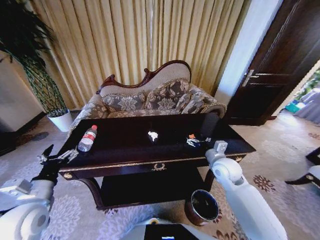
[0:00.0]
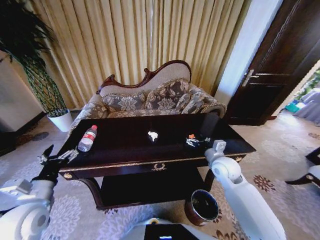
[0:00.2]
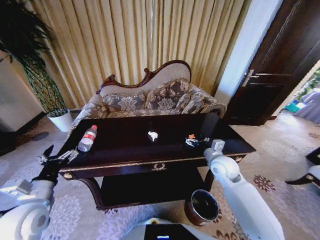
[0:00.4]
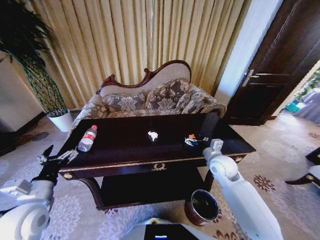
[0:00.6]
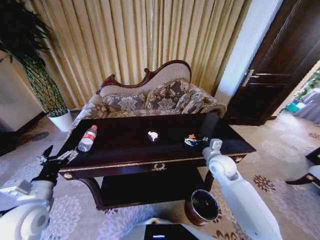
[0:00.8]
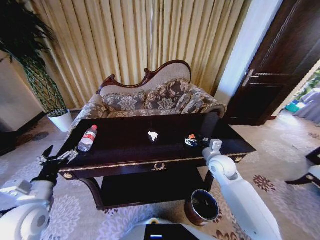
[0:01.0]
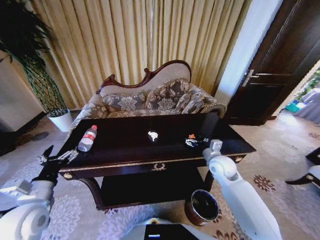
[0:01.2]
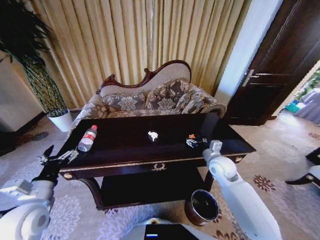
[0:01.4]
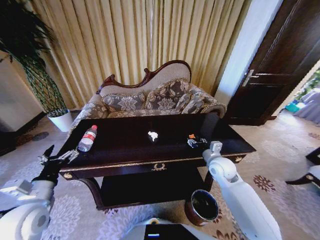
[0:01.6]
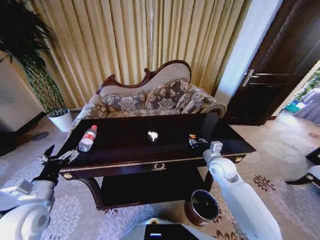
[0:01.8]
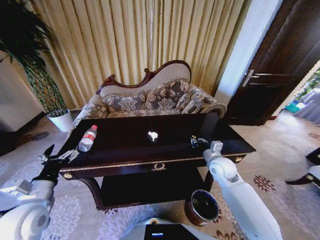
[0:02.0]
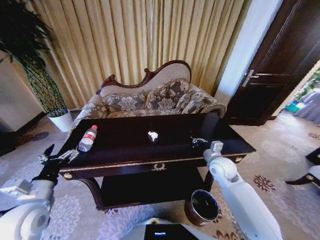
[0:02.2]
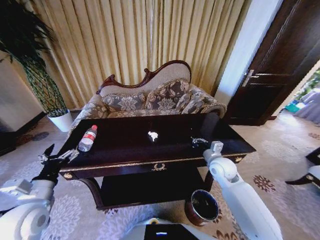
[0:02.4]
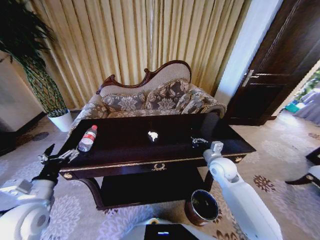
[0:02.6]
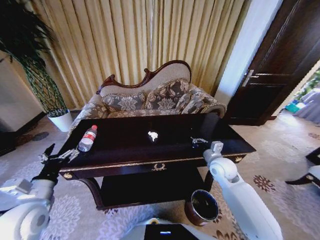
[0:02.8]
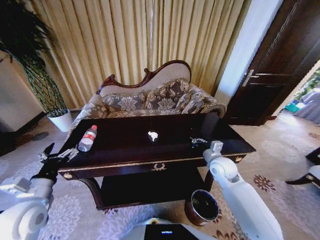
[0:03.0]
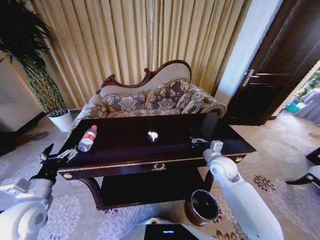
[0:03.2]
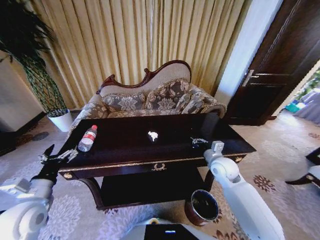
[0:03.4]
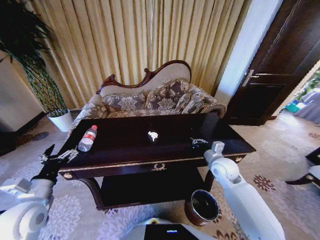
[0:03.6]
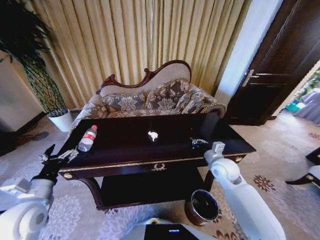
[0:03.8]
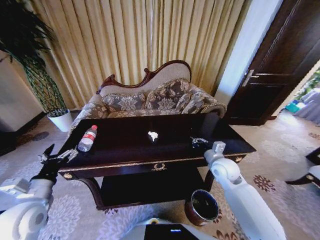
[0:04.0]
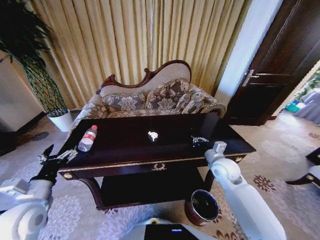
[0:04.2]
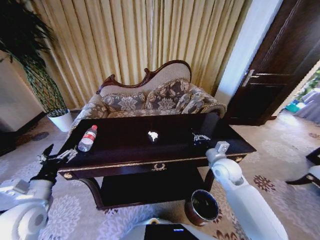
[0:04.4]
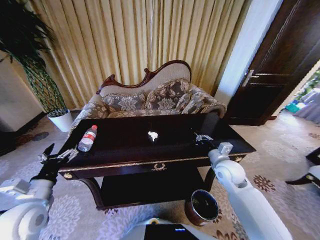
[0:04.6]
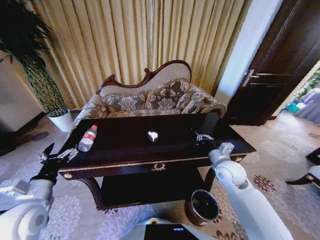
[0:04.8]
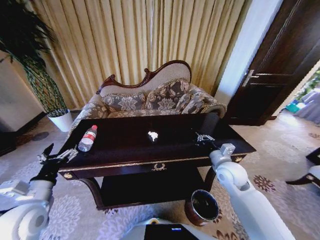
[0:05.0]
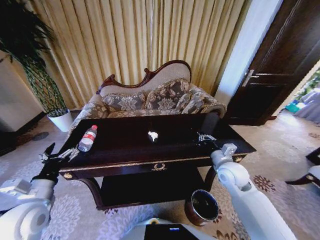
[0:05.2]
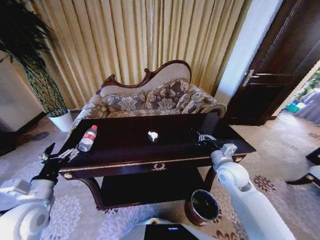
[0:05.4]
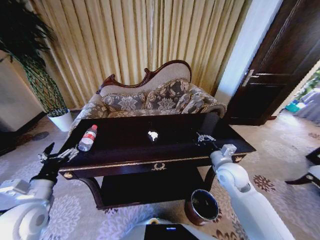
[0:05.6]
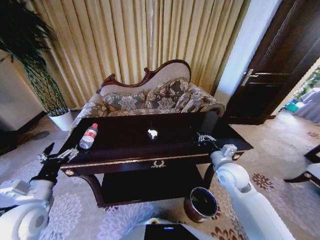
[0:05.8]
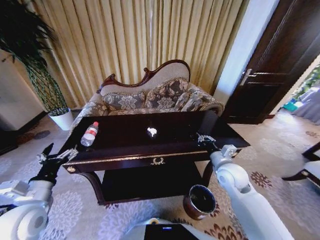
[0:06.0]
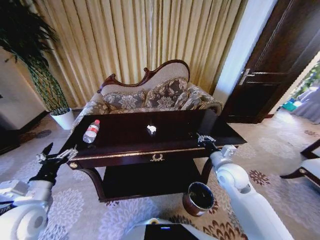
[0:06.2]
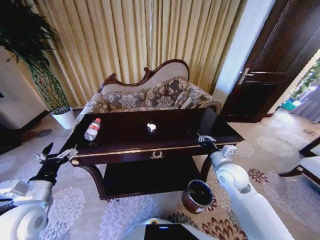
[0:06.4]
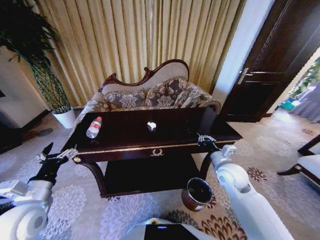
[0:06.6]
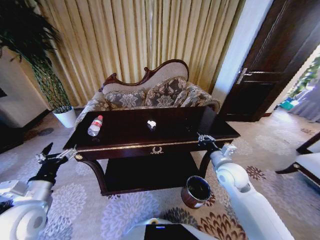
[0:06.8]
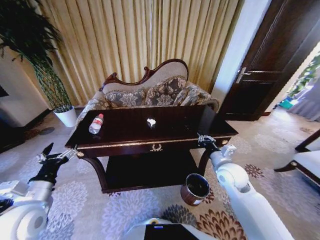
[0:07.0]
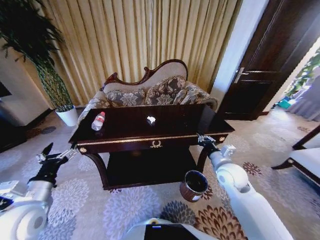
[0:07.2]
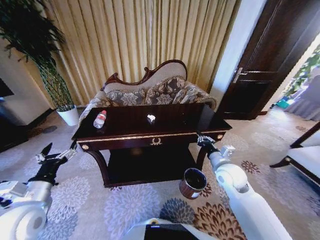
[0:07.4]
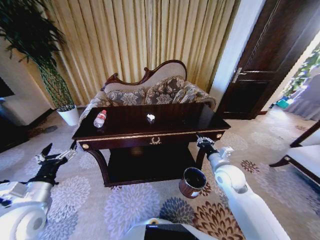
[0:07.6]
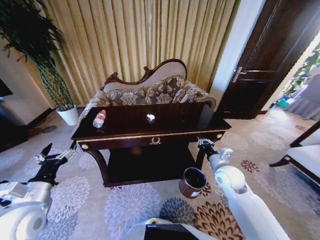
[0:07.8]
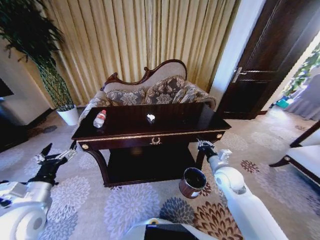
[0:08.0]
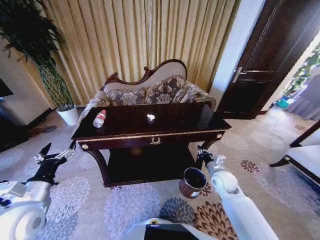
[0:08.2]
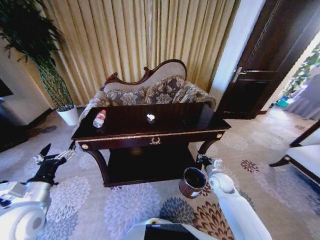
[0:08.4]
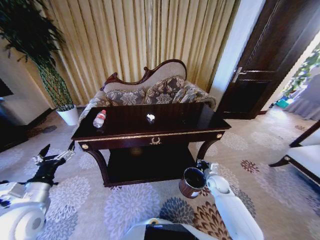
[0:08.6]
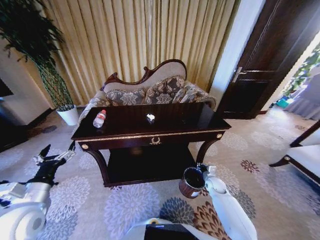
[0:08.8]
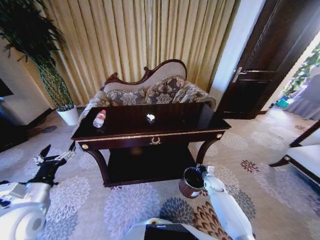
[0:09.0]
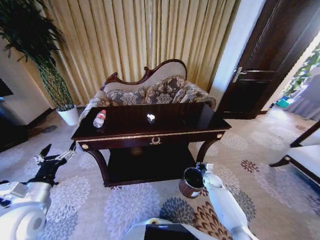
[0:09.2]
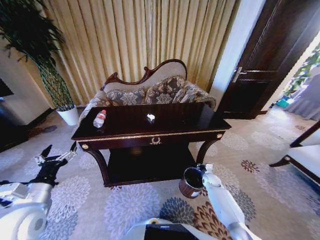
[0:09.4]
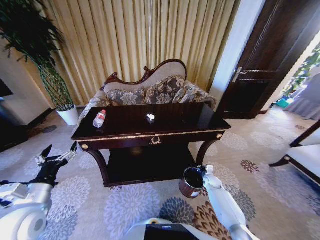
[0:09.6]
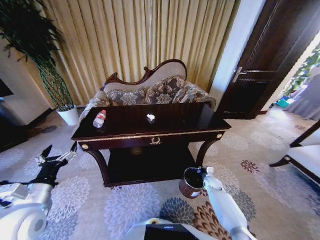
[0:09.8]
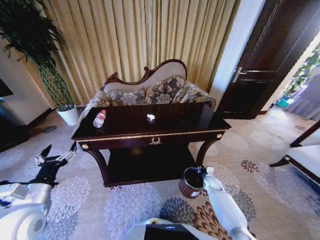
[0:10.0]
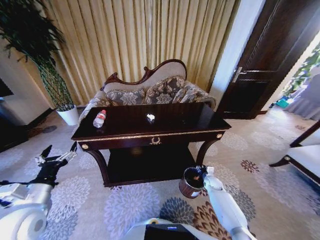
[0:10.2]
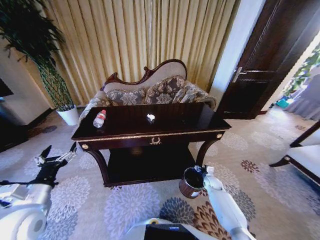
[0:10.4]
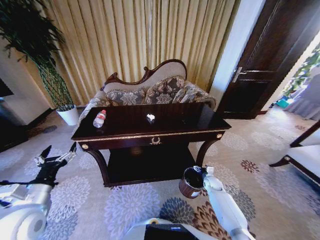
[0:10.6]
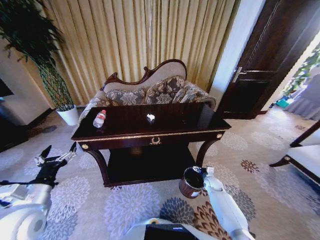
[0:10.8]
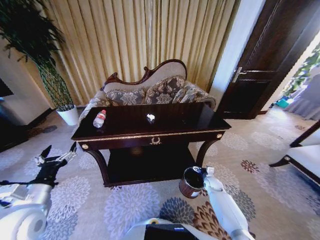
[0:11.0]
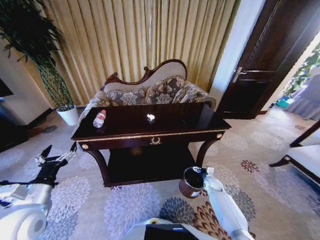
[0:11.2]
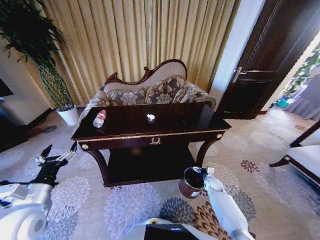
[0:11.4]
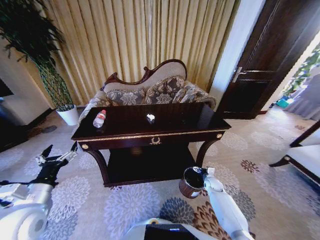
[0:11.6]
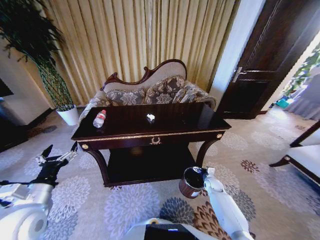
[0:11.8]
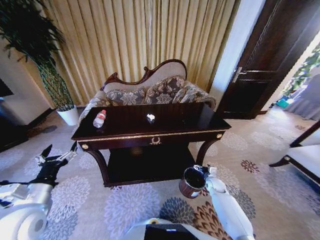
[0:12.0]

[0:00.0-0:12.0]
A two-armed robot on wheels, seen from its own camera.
Task of the whole recording: Move to the front of the table and place the trash on the table into the trash bin.
0:00.0 to 0:01.6: The right gripper closes.
0:01.6 to 0:03.0: The right gripper closes up.
0:03.0 to 0:06.0: The grippers stay close to where they were, moving slightly.
0:07.6 to 0:09.0: The right gripper shifts approximately 25 cm downward.
0:09.0 to 0:10.4: The right gripper opens.
0:10.4 to 0:12.0: The right gripper opens.

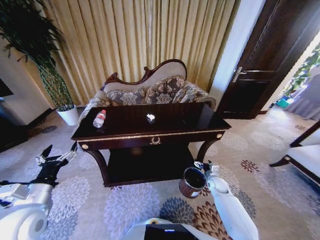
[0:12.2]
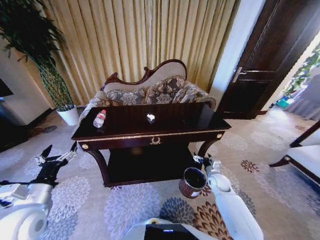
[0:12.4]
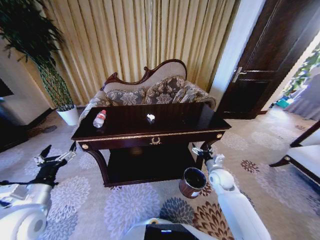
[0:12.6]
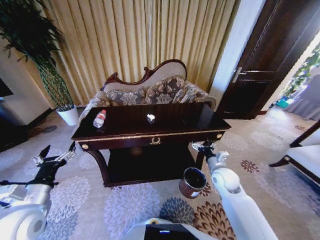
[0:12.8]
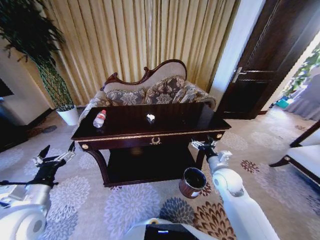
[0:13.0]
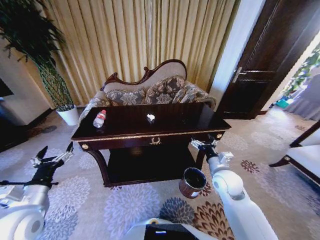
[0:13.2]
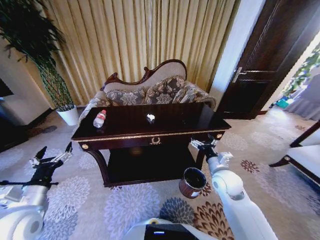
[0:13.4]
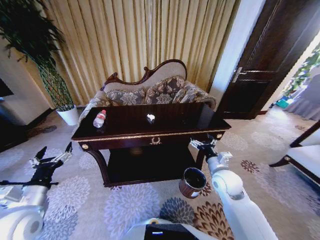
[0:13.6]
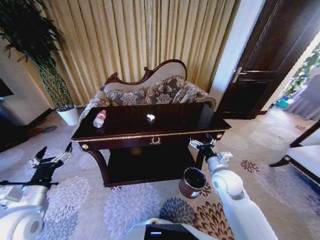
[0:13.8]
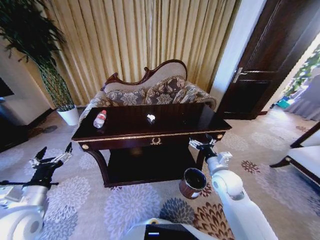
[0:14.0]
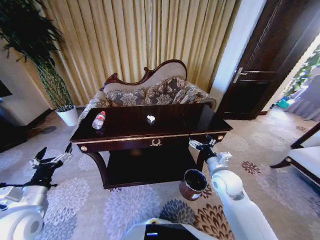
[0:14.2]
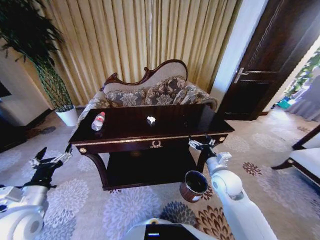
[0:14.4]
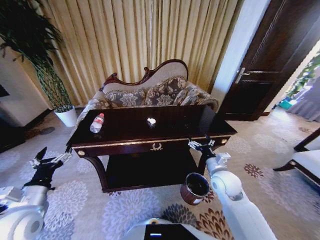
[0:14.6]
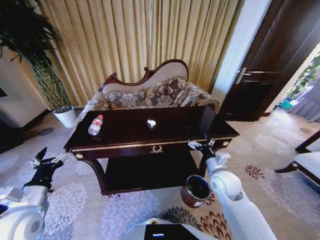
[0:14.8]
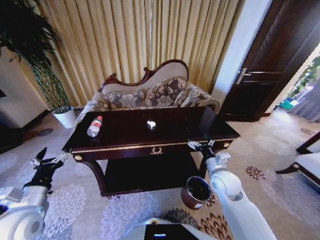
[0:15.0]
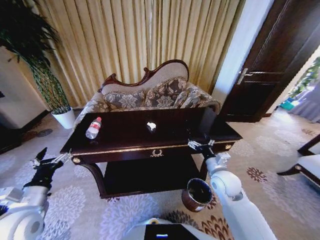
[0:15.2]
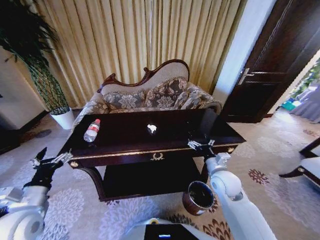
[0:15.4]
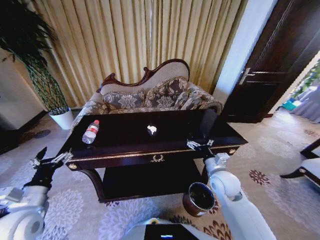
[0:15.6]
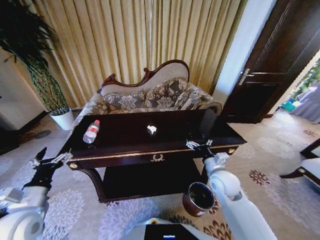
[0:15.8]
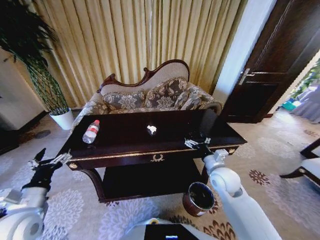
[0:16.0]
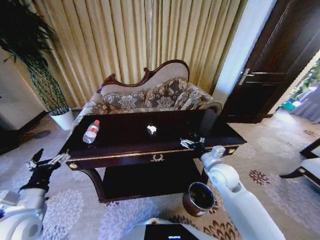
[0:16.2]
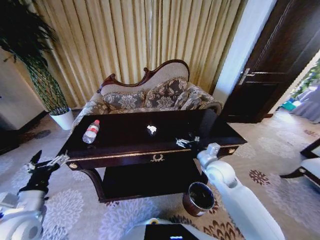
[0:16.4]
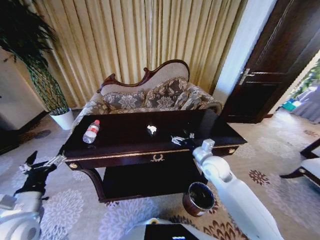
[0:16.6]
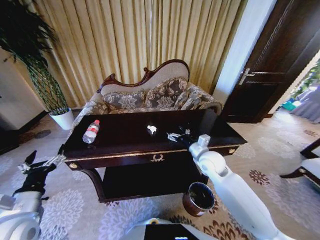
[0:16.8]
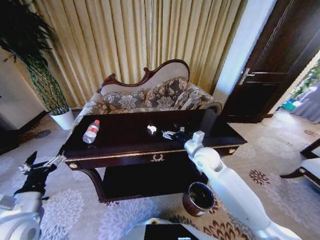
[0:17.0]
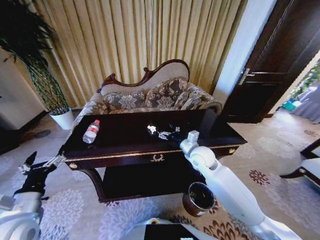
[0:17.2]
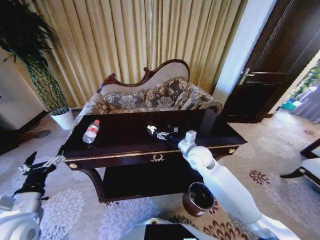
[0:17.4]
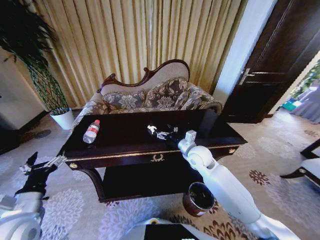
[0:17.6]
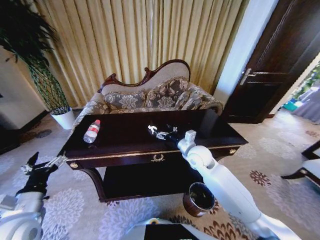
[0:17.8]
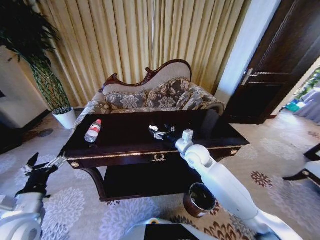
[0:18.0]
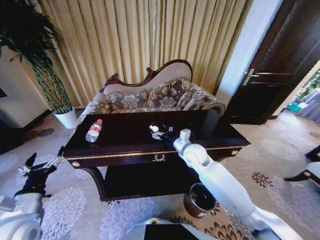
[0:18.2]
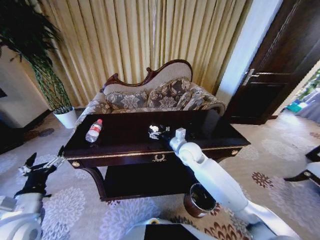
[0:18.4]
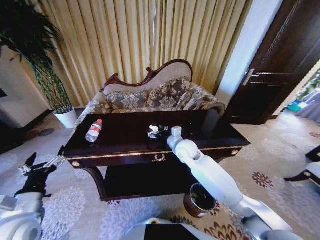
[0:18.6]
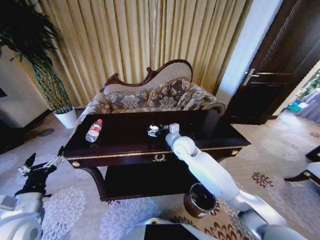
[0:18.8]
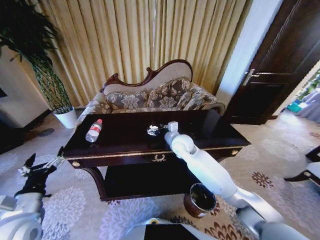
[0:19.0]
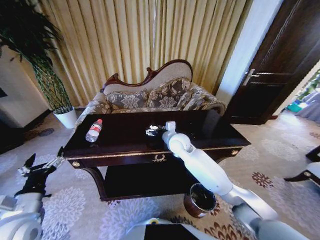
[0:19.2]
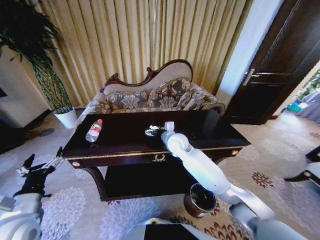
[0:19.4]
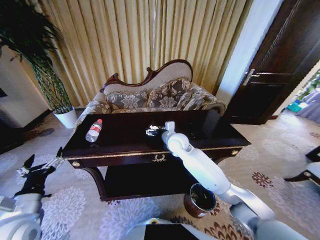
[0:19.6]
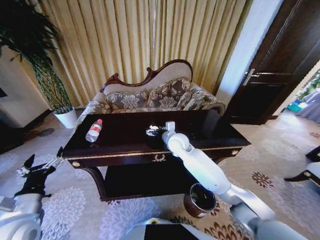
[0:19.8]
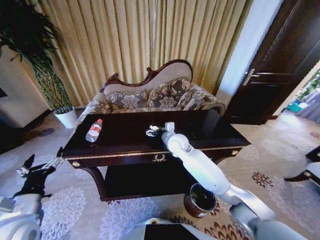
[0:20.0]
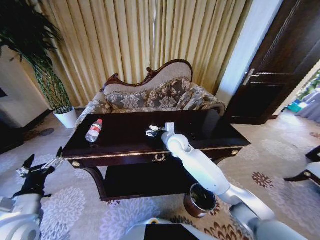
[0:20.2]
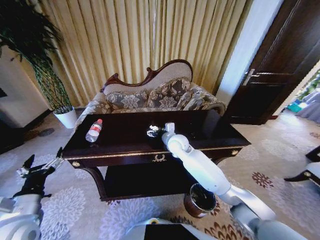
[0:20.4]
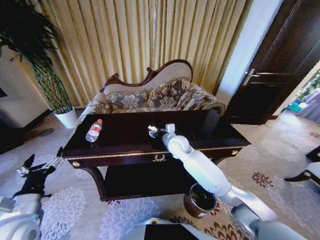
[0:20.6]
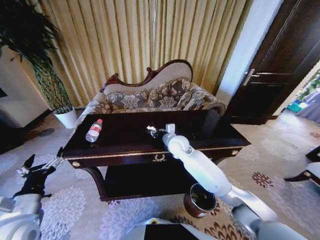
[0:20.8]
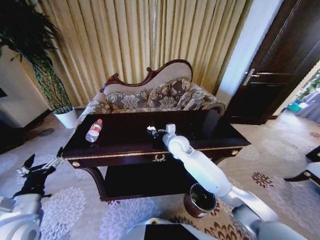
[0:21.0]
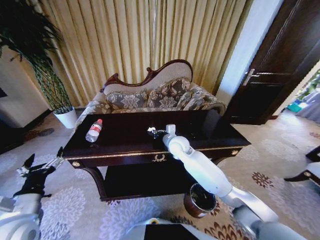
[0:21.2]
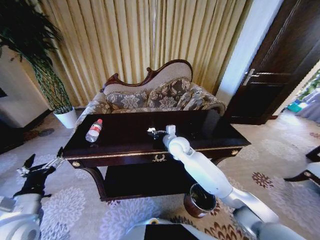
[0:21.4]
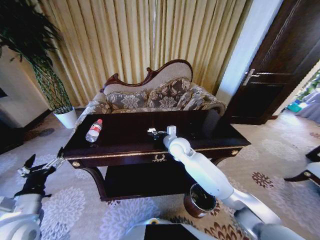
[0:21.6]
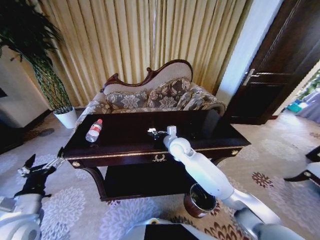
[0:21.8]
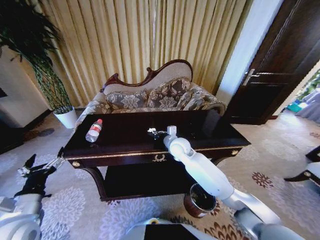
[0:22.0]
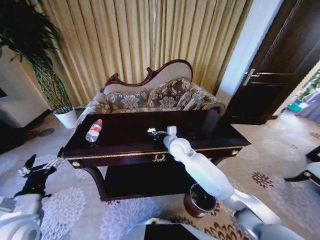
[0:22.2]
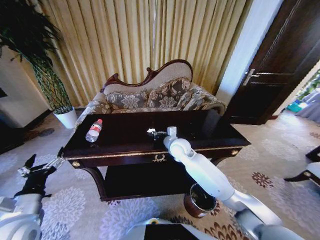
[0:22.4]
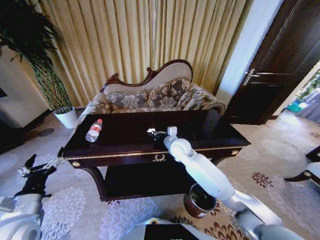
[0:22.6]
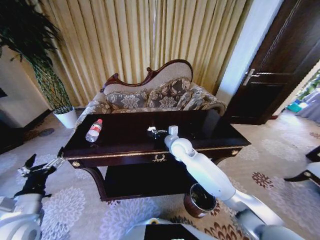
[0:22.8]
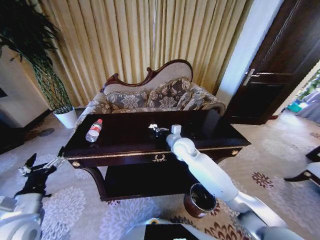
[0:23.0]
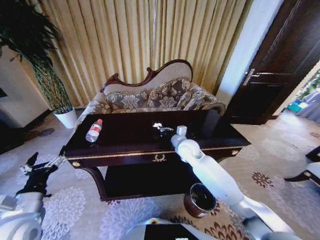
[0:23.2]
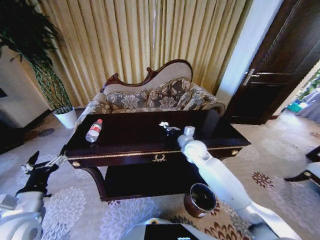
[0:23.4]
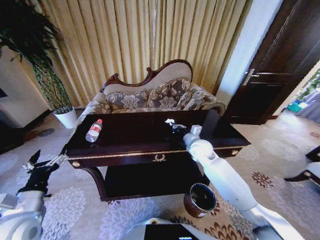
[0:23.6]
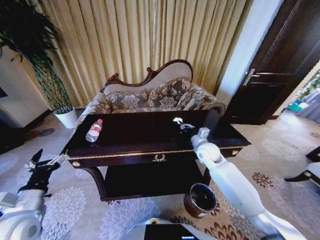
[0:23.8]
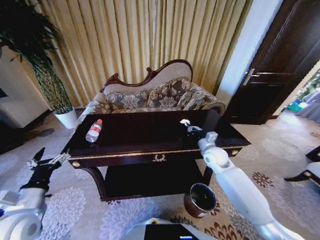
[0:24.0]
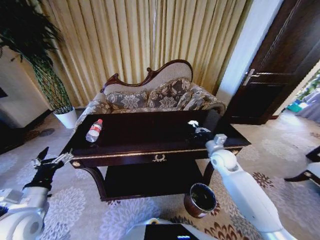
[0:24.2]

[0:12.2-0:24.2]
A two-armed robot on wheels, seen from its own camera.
Task of the whole recording: Move to the front of the table and place the trash on the table into the trash bin.
0:12.2 to 0:13.8: The right gripper travels upward and to the left by approximately 25 cm.
0:15.2 to 0:16.6: The right gripper is displaced forward by some 5 cm.
0:16.6 to 0:18.2: The right gripper shifts some 10 cm to the left and forward.
0:18.2 to 0:19.8: The right gripper travels to the left and forward by roughly 10 cm.
0:19.8 to 0:21.2: The right gripper closes up.
0:21.2 to 0:22.6: Both grippers stay about where they are.
0:22.6 to 0:24.2: The right gripper moves to the right, some 20 cm.
